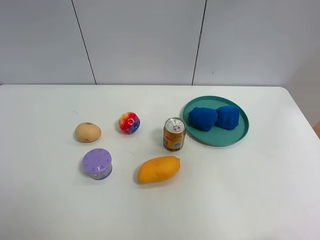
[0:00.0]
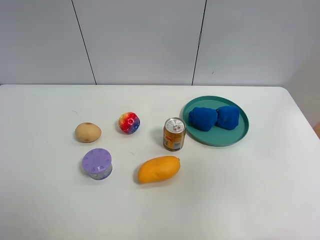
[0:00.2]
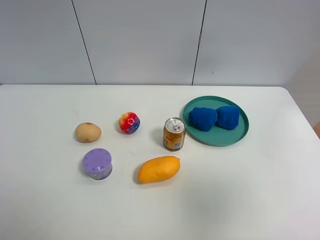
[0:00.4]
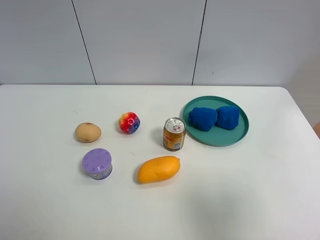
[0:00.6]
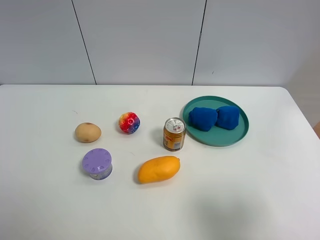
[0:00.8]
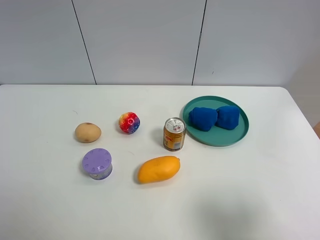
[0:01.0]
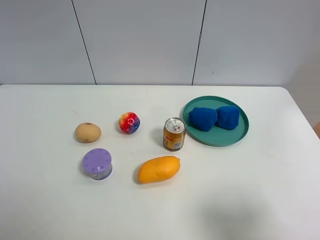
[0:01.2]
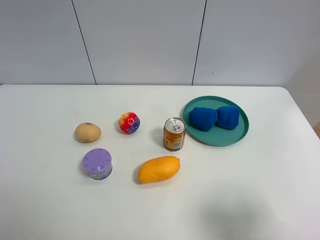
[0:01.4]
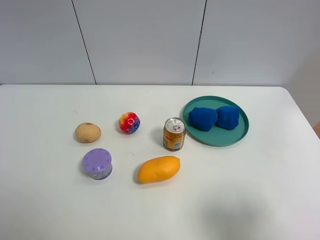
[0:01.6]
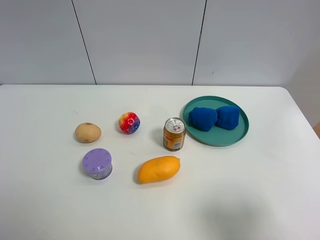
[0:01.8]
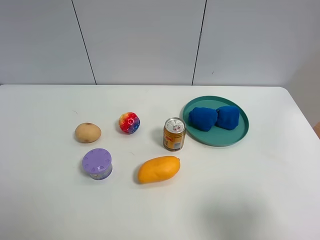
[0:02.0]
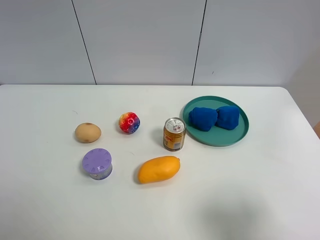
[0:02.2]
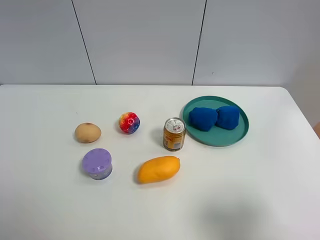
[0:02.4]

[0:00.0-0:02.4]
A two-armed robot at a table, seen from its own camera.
Task of the whole recording: the gripper move the object.
0:00.0 to 0:01.2: The right gripper heads downward, covering roughly 25 cm.
0:01.2 to 0:02.4: The two grippers keep their place.

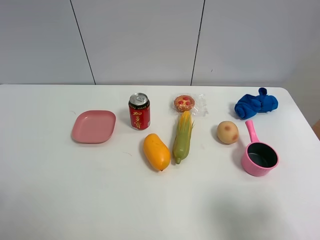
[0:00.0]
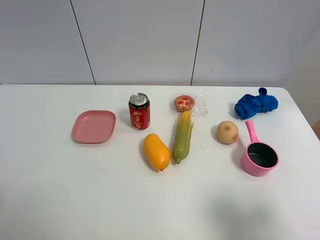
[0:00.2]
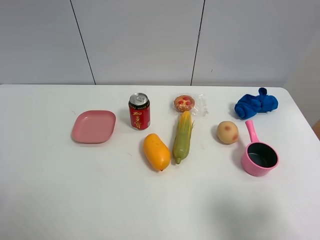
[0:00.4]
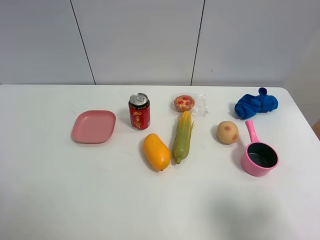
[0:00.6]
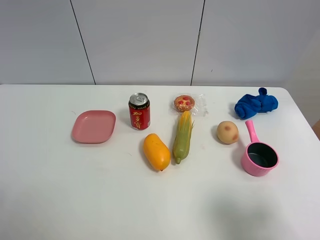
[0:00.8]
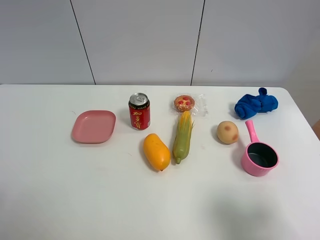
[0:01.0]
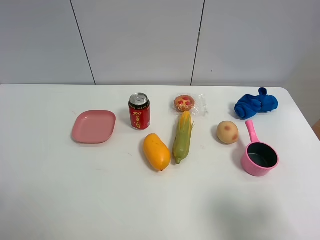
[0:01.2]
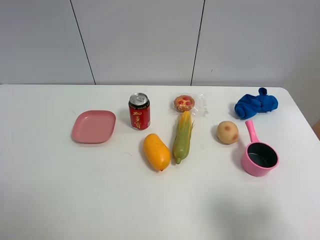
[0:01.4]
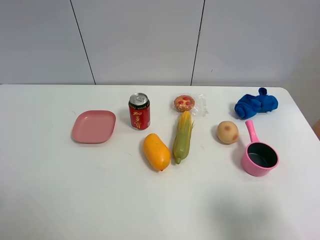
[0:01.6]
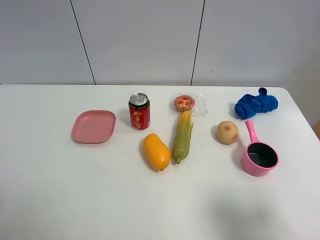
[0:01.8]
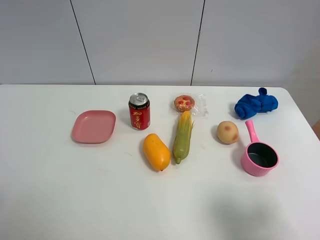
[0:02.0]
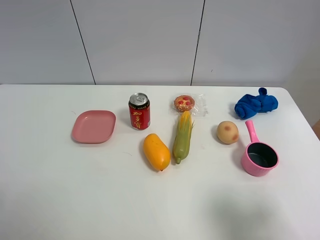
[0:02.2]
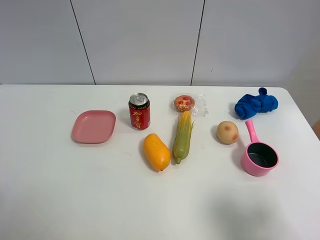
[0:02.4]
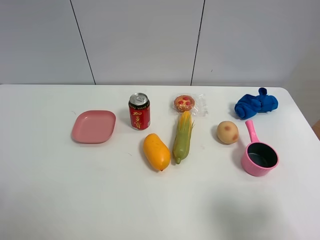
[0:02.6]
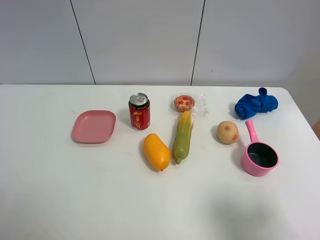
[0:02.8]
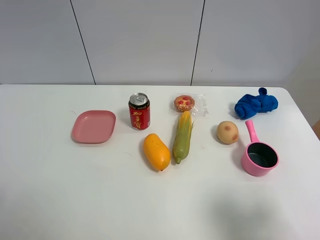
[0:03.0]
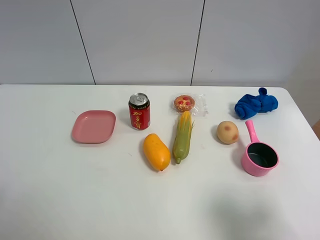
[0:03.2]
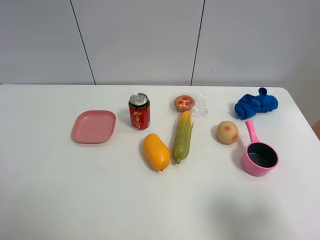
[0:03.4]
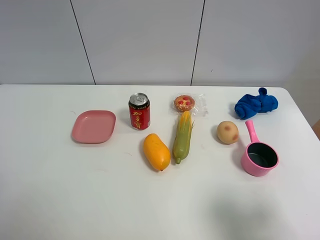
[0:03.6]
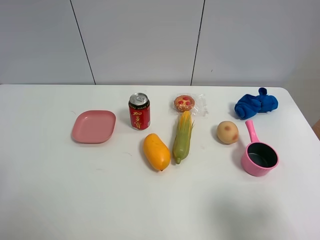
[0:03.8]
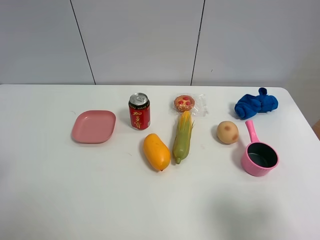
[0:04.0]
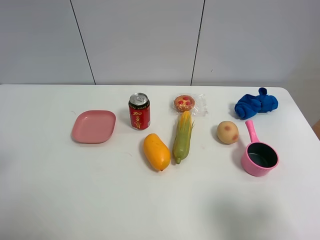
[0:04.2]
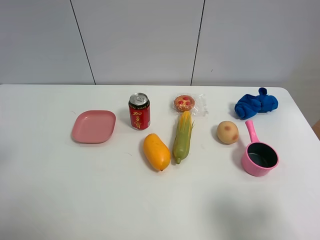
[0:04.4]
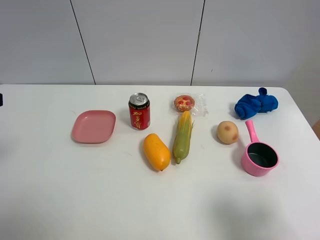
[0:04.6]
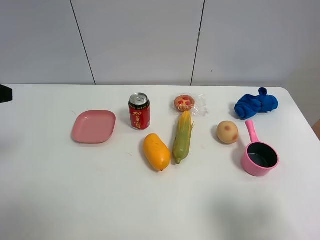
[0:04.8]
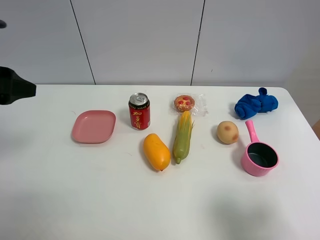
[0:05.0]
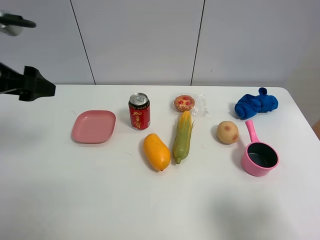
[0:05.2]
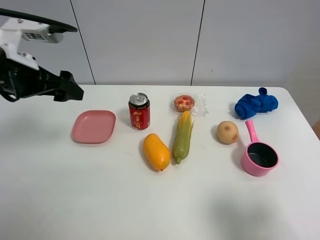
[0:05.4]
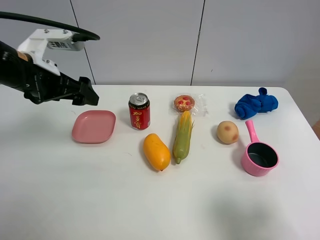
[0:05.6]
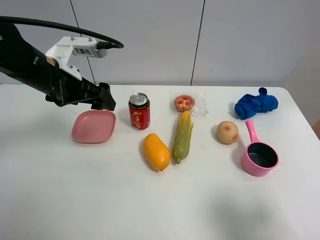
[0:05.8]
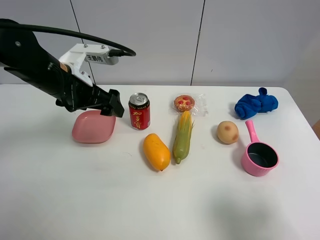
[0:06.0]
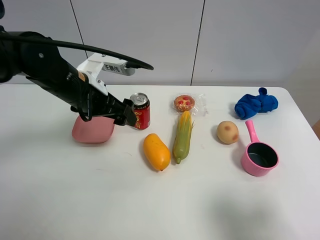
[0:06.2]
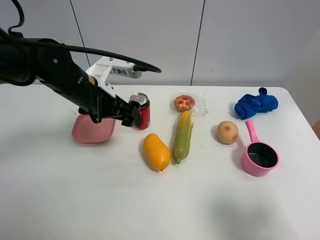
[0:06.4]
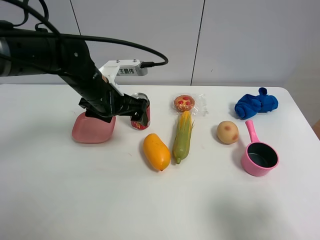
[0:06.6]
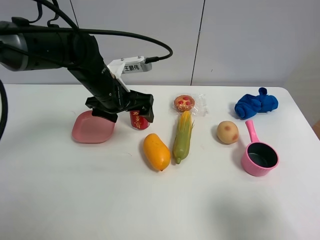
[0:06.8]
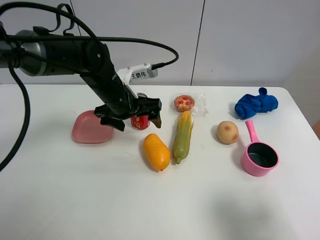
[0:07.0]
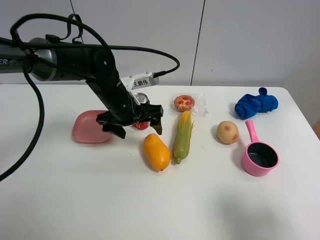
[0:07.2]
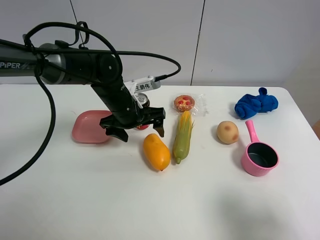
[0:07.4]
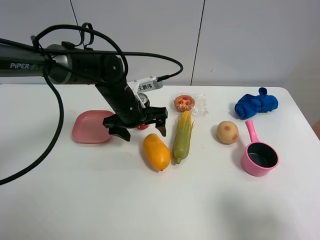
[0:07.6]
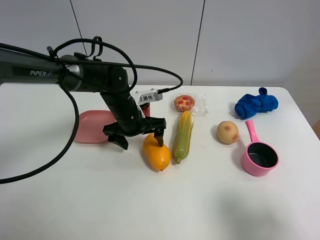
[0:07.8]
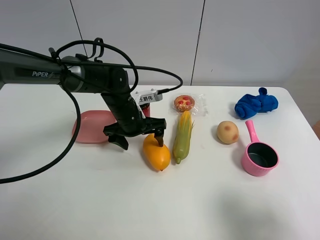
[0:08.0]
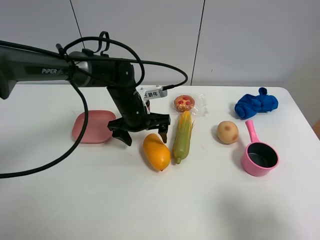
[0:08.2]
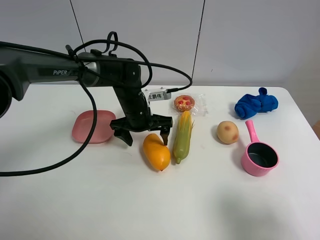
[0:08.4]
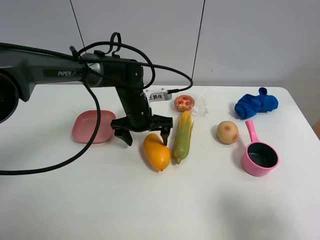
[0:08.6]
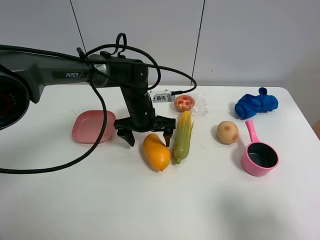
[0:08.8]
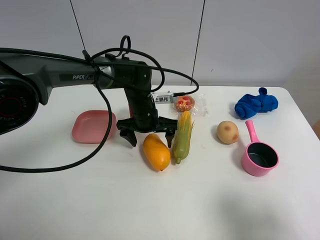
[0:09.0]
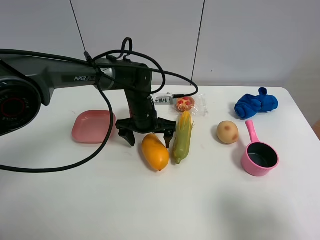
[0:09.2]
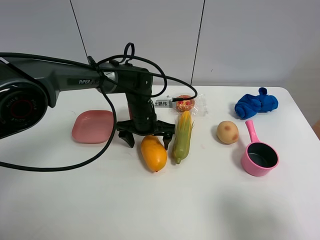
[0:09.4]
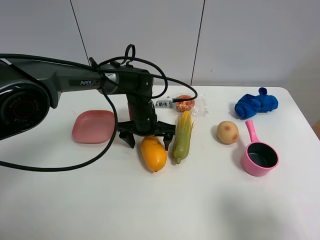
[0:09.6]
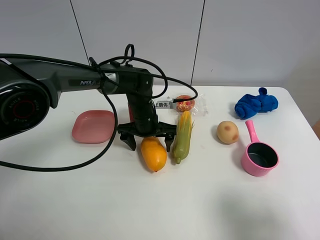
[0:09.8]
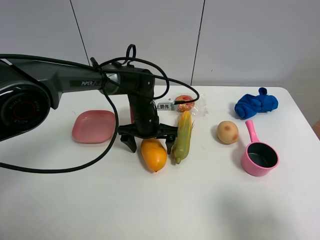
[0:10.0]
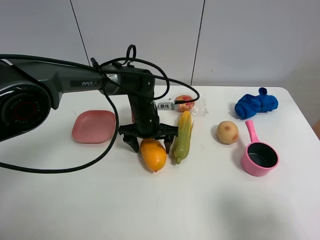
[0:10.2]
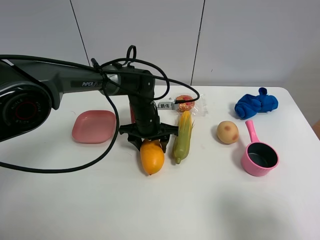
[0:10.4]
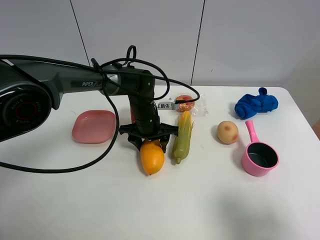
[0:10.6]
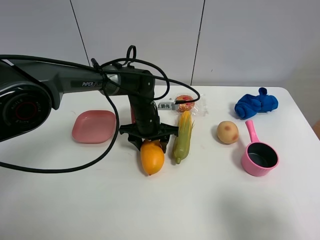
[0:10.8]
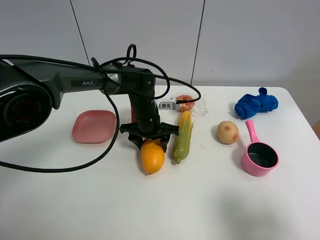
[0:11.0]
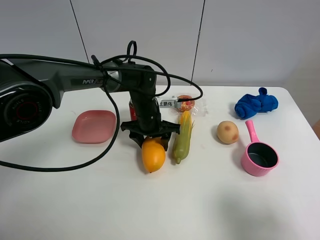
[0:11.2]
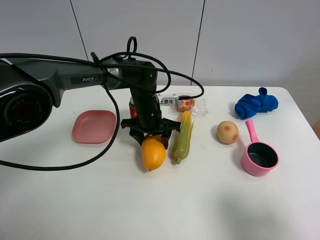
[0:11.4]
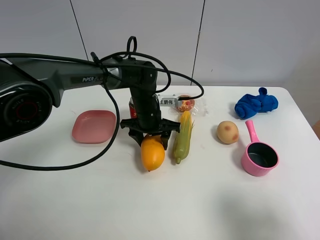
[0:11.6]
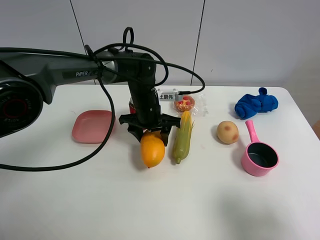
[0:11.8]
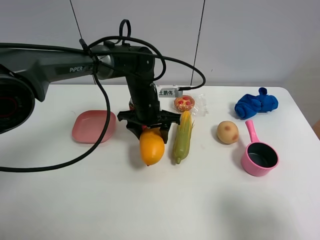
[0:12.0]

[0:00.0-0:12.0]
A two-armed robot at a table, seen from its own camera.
Task of the whole recording: the gripper move the object.
Step, 0:00.0 to 0:10.4: Grasp the mango with the left gripper.
0:00.0 to 0:01.6: Both grippers stay about where they are.
0:04.4 to 0:06.0: The left gripper heads to the right, forward and downward, covering some 25 cm.
0:06.0 to 0:07.6: The left gripper is displaced downward and to the right by approximately 15 cm.
0:07.6 to 0:09.0: The left gripper changes place by approximately 5 cm.
0:09.0 to 0:10.4: The left gripper closes.
0:10.4 to 0:12.0: The left gripper moves upward, roughly 5 cm.

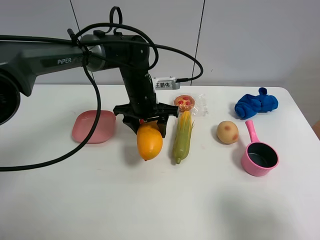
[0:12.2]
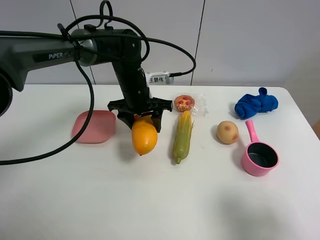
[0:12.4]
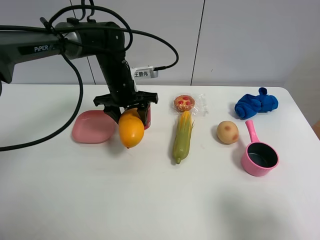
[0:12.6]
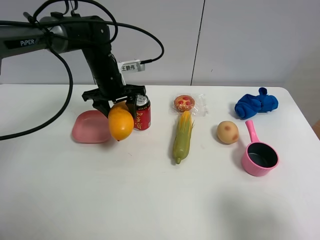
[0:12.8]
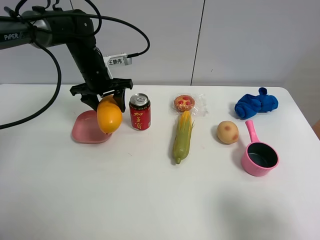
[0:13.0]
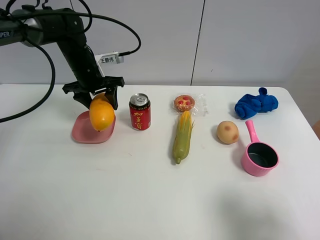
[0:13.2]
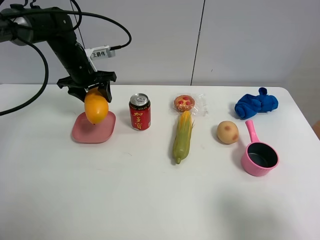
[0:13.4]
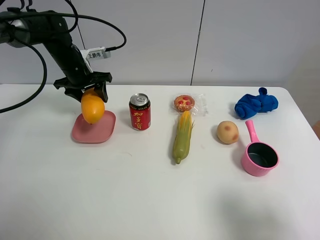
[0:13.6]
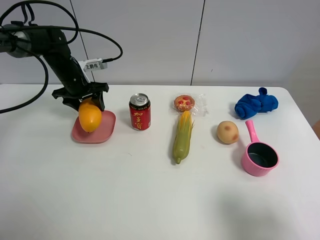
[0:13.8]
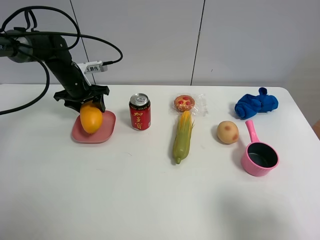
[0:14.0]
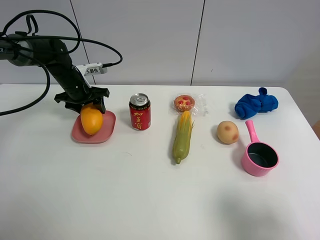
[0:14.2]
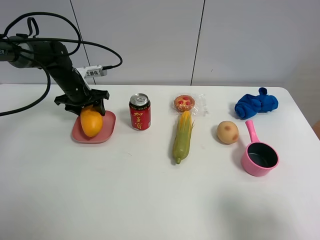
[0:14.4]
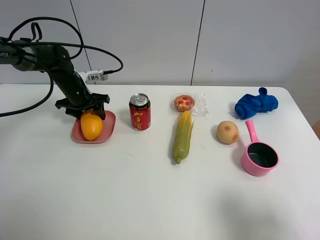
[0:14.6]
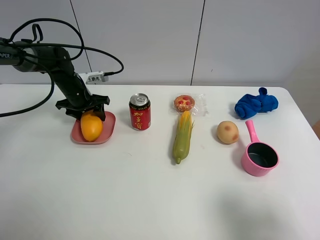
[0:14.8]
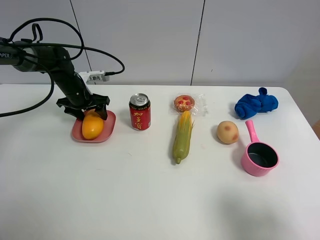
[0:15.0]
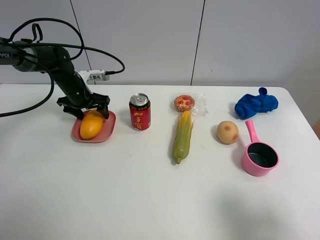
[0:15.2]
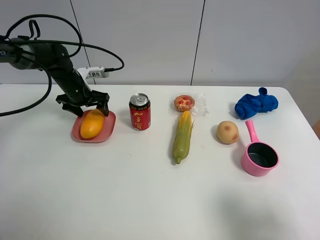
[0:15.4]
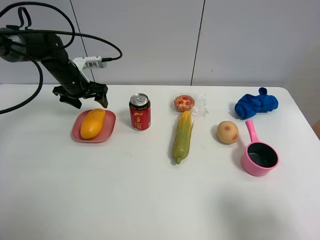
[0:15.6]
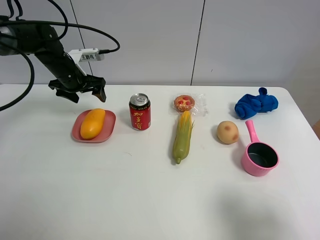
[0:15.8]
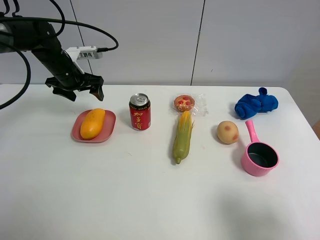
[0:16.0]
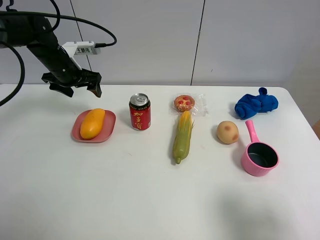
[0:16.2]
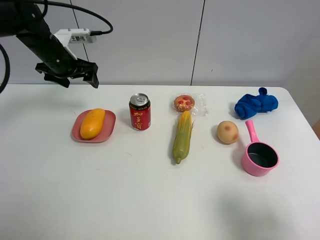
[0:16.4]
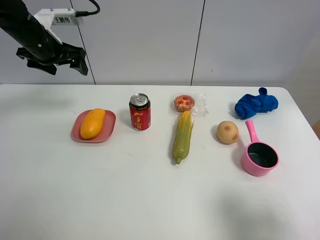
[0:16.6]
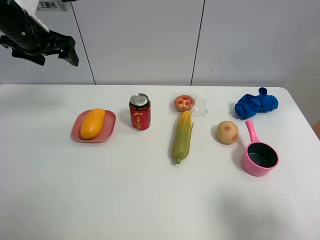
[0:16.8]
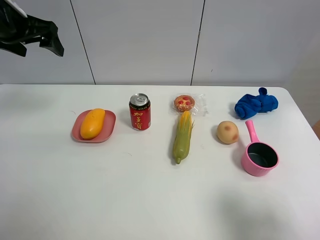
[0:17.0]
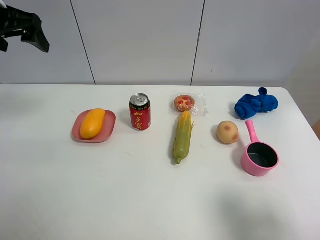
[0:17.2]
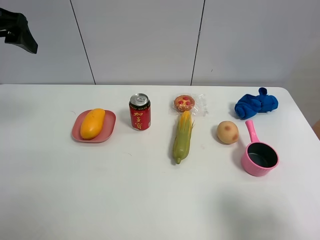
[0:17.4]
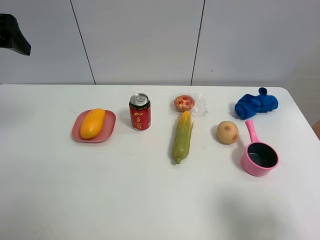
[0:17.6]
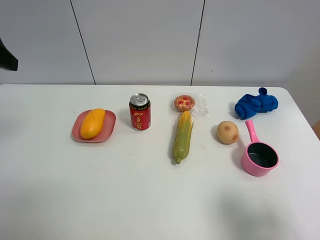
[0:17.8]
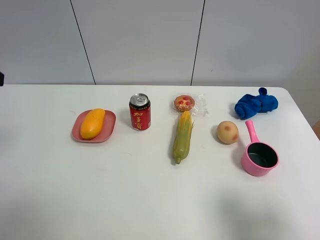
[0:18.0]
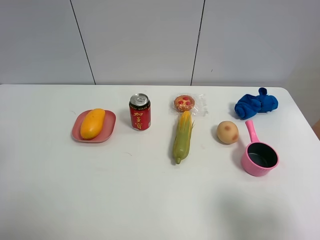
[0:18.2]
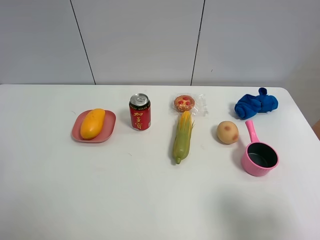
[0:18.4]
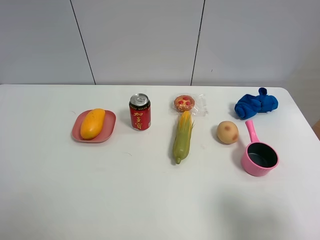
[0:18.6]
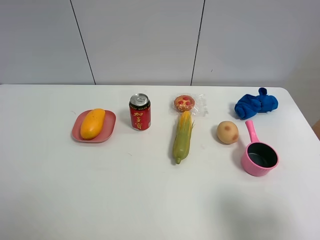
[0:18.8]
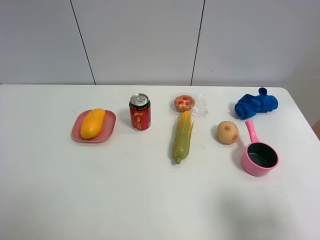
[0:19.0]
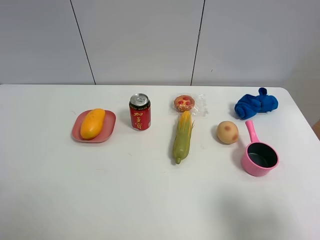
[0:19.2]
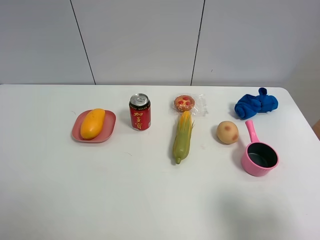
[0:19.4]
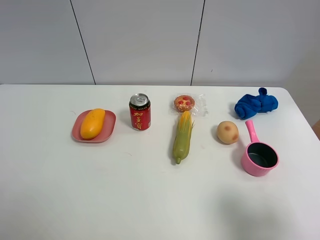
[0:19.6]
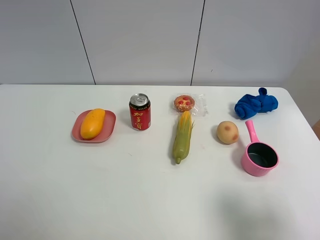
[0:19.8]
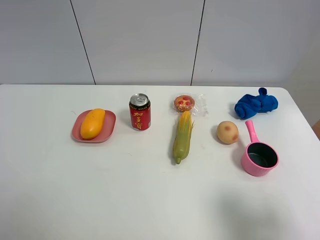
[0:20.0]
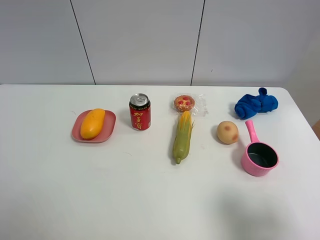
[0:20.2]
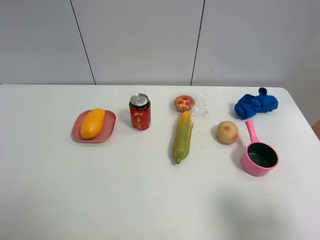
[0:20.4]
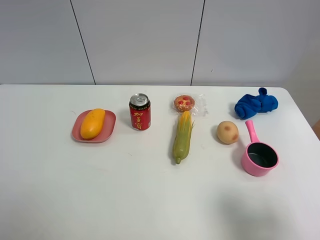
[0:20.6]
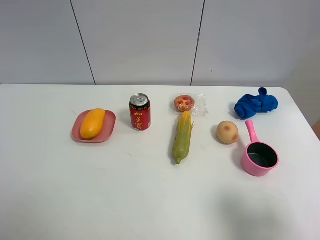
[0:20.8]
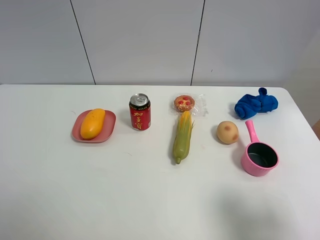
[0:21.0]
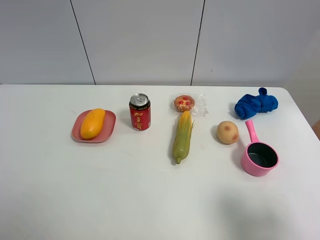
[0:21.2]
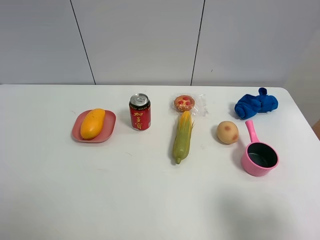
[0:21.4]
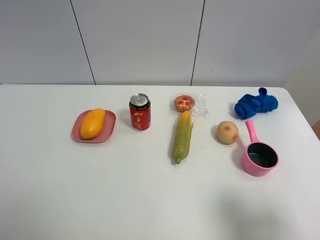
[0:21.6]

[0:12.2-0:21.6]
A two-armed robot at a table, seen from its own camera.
Task of the whole recording: the gripper move the object.
Step, 0:12.2 to 0:16.0: Place the mango into the pink plate with the left gripper.
0:12.2 to 0:13.8: The left gripper heads to the left and forward, covering some 20 cm.
0:13.8 to 0:15.4: The left gripper opens its fingers.
0:15.4 to 0:17.0: The left gripper shifts approximately 20 cm upward.
0:17.0 to 0:18.4: The left gripper moves backward, some 25 cm.
